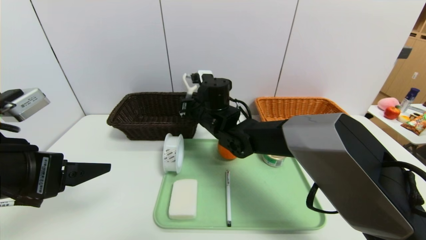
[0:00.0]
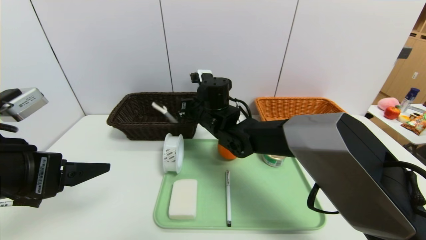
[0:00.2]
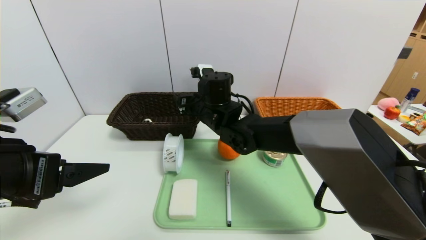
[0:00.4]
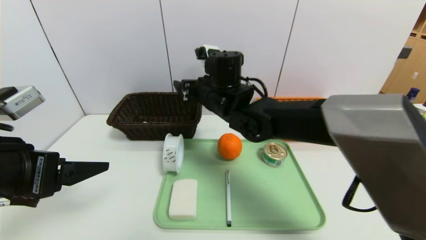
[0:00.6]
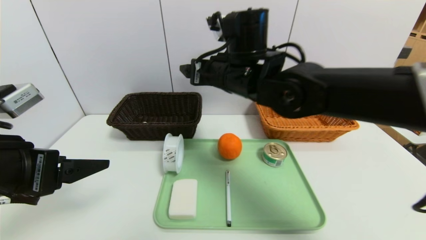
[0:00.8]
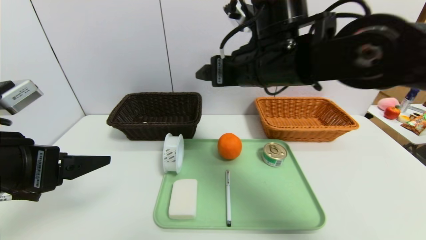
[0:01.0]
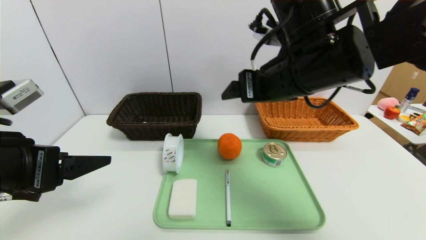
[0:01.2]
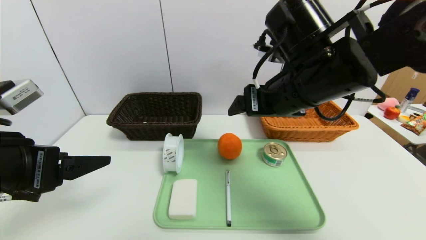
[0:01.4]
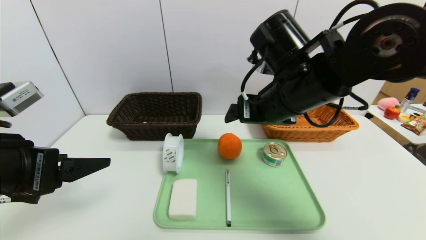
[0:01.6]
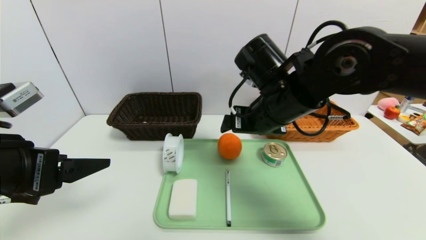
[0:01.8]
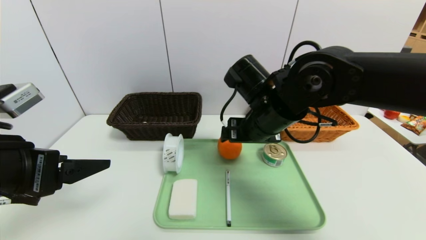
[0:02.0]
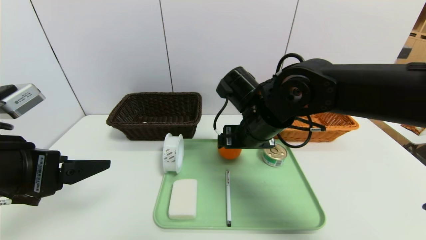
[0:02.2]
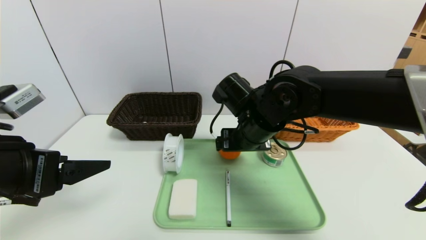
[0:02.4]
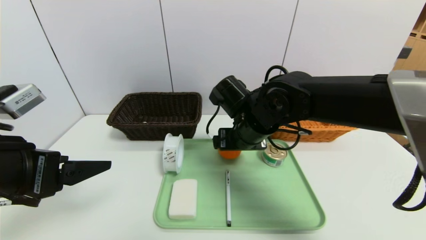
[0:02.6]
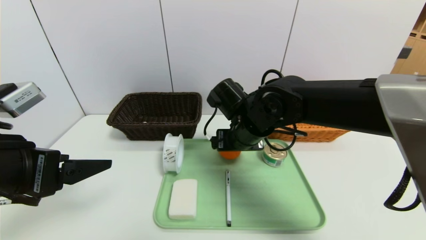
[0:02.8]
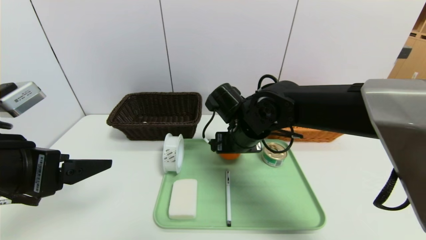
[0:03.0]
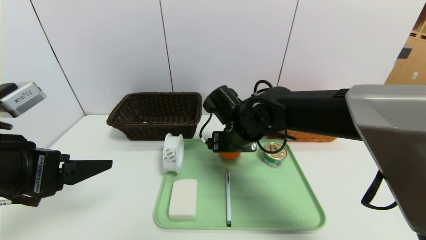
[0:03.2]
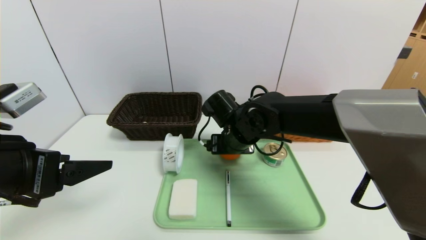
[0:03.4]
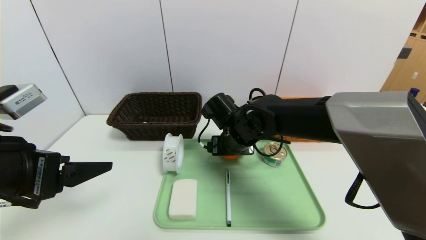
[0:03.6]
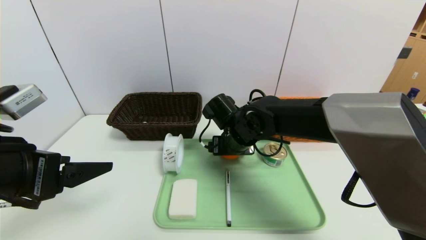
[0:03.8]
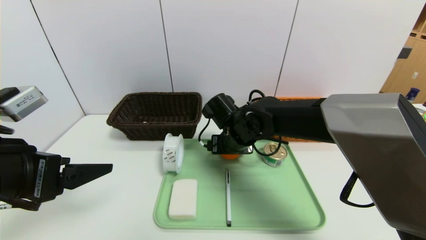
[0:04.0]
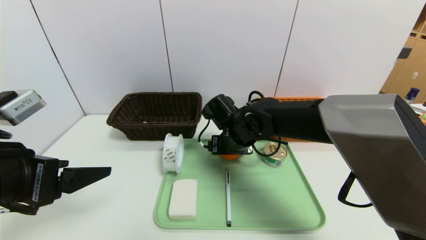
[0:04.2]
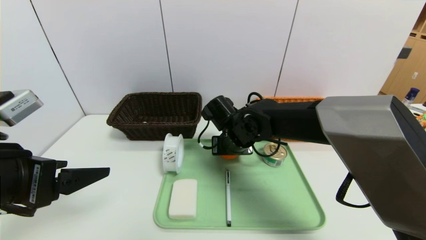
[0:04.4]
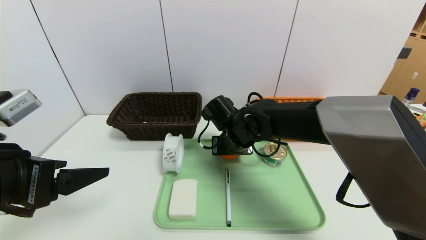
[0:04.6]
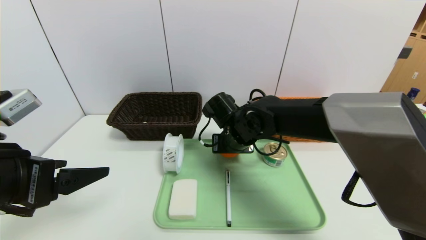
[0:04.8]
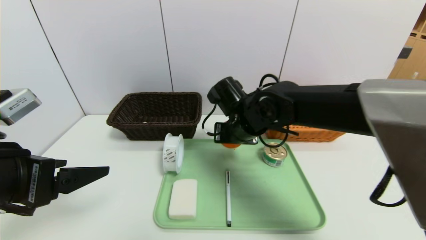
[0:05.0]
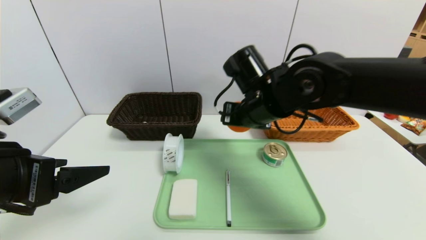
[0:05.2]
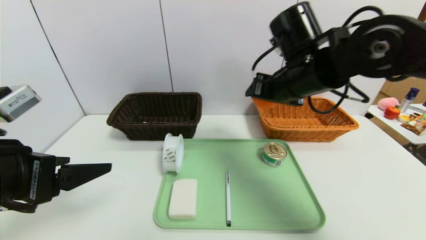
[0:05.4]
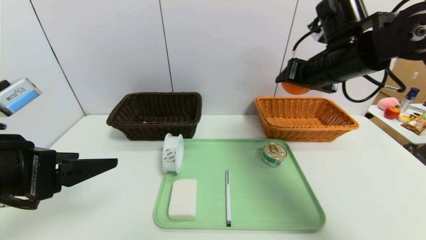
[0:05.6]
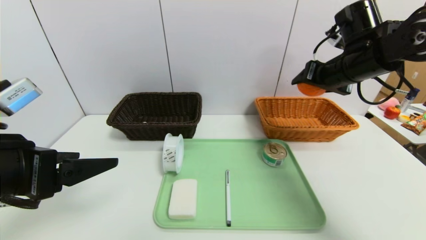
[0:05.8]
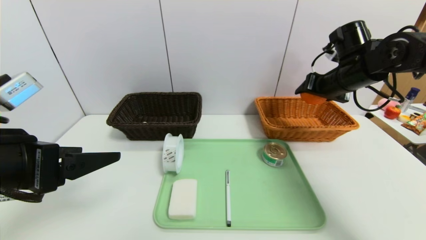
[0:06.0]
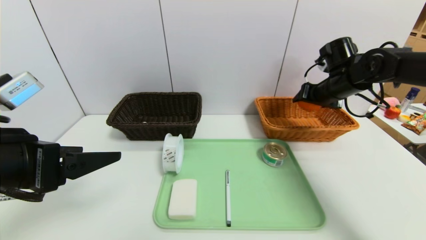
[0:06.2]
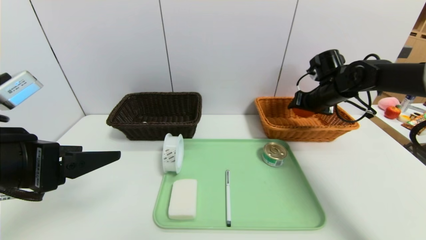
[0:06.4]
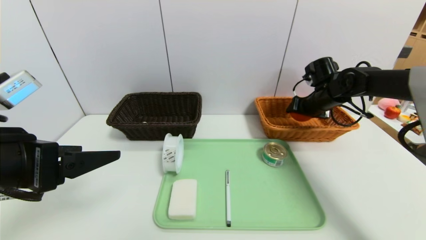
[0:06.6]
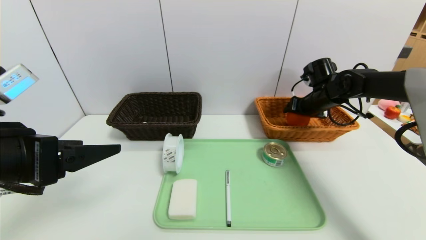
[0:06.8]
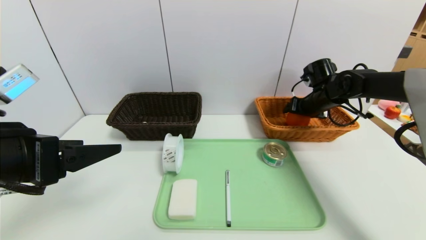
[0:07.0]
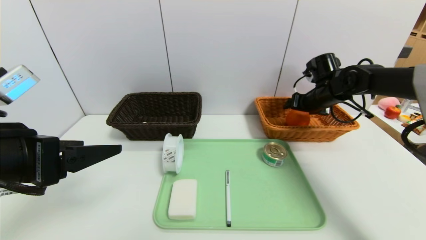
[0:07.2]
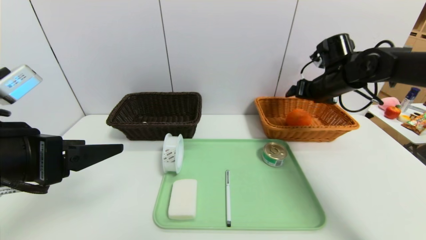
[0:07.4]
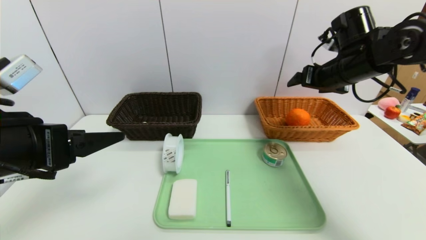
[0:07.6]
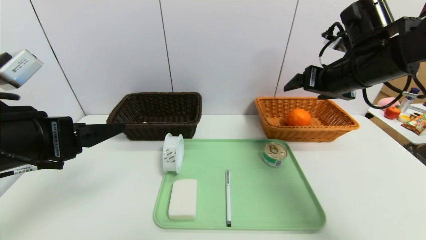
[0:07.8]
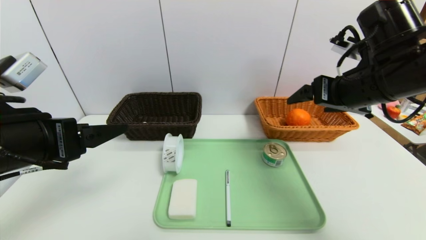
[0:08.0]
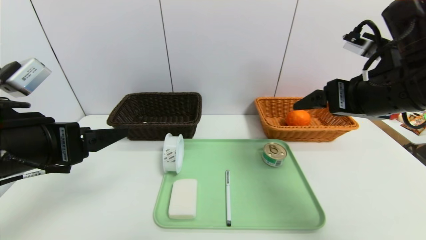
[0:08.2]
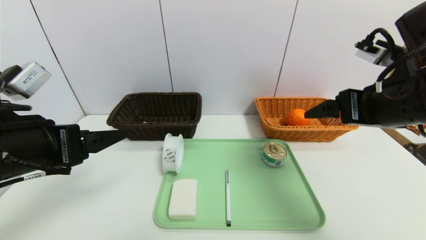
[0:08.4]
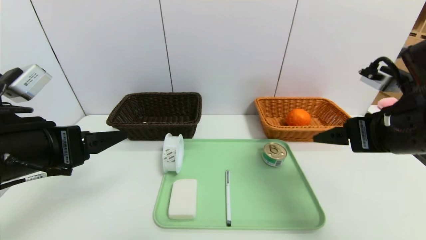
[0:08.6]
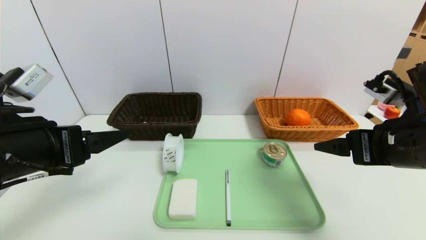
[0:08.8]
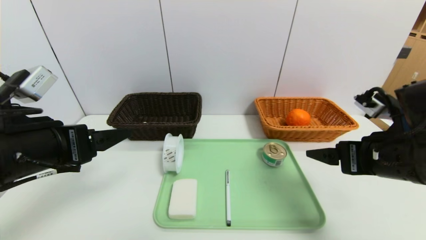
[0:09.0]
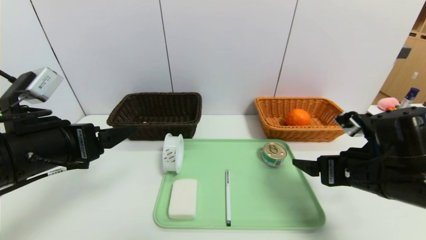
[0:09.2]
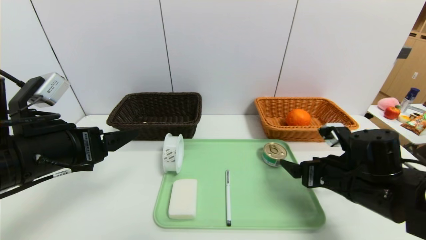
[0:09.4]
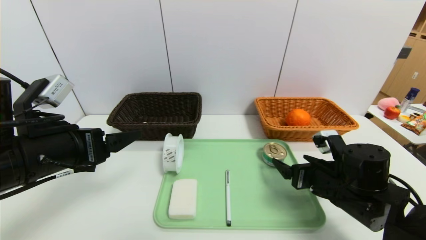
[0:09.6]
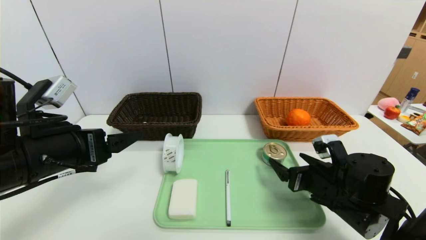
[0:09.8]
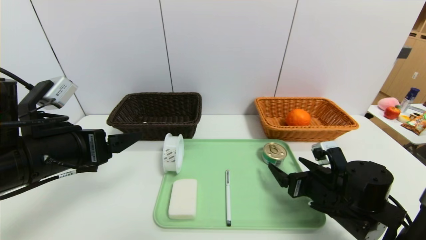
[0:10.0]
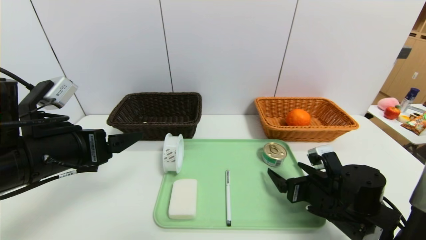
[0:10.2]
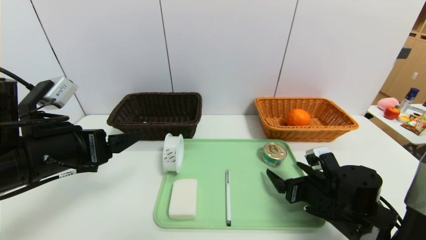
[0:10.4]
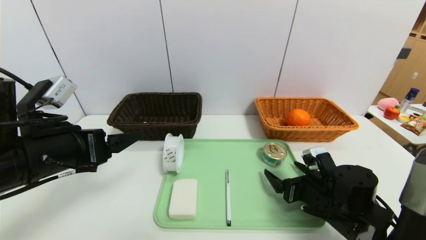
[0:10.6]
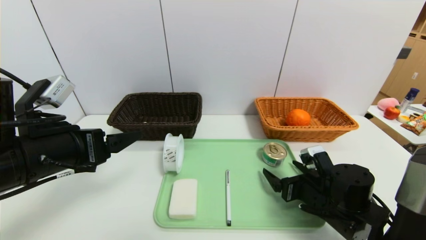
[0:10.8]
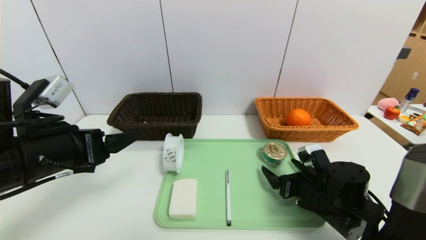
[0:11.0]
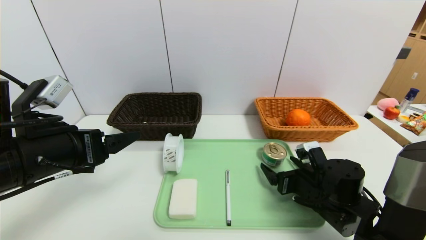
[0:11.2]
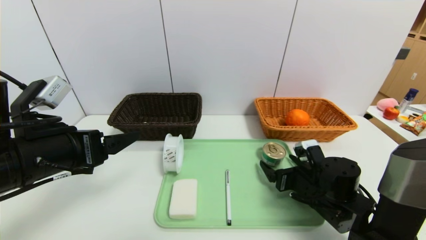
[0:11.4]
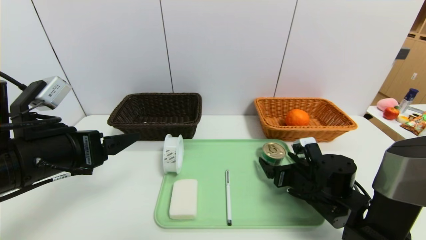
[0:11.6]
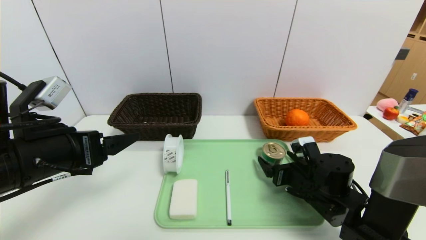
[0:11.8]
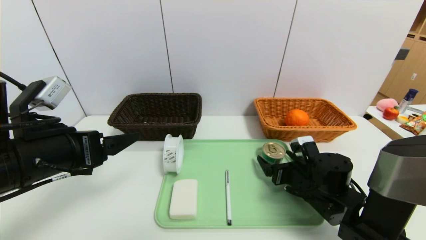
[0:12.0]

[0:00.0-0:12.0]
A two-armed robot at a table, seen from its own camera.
Task of the whole recording: place the food in the right basket with the right gripper, and place the non food items in the left basket with the left gripper.
Step, 0:00.4 to 0:07.0: Grasp the orange and put it in the right basket.
0:00.0 to 0:01.6: The right gripper shifts roughly 20 cm to the right, backward and upward, and opens.
0:01.6 to 0:03.0: The right gripper shifts roughly 10 cm downward and to the left.
0:03.0 to 0:04.4: The grippers move only a little.
0:04.4 to 0:06.0: The right gripper moves to the right and upward, about 25 cm.
0:06.0 to 0:07.6: The right gripper reaches some 10 cm downward, then returns.
0:07.6 to 0:09.0: The right gripper travels backward and downward by roughly 20 cm.
0:09.0 to 0:10.4: The right gripper goes roughly 15 cm downward.
0:10.4 to 0:12.0: The right gripper shifts by roughly 5 cm.

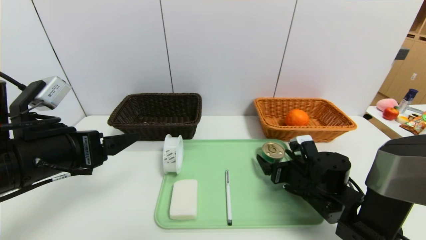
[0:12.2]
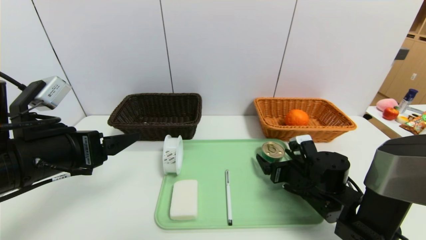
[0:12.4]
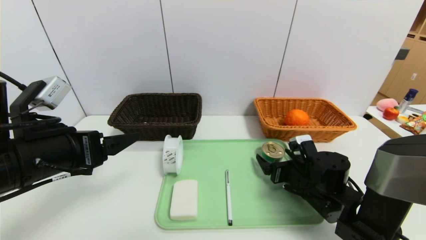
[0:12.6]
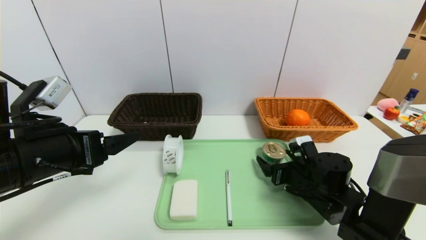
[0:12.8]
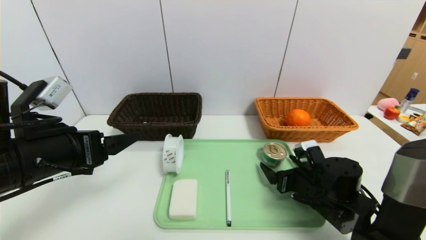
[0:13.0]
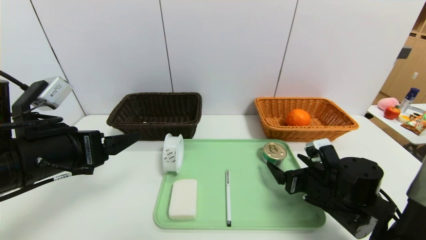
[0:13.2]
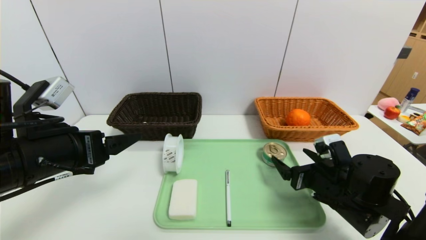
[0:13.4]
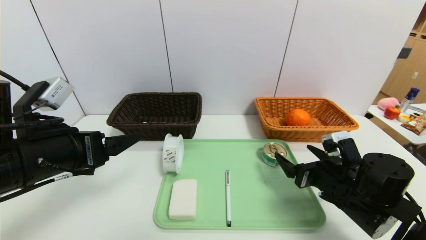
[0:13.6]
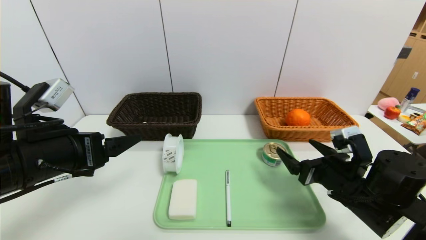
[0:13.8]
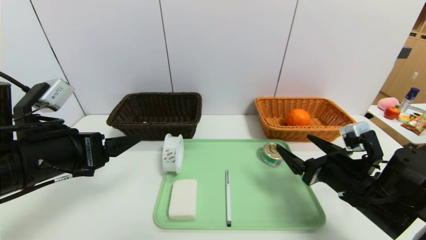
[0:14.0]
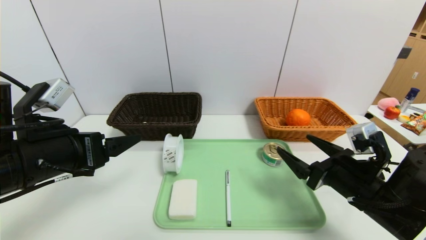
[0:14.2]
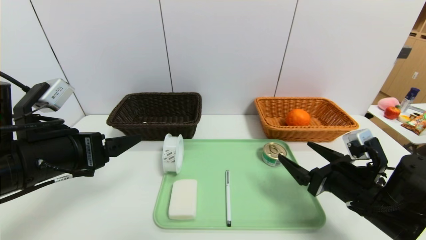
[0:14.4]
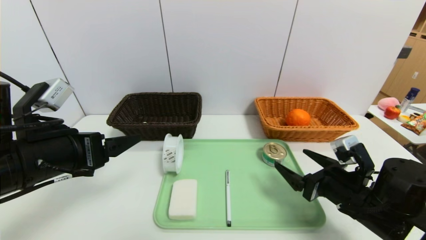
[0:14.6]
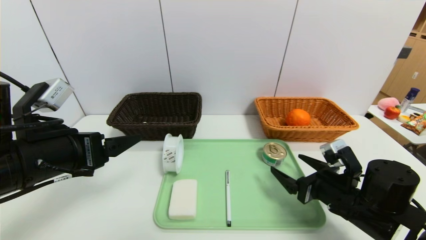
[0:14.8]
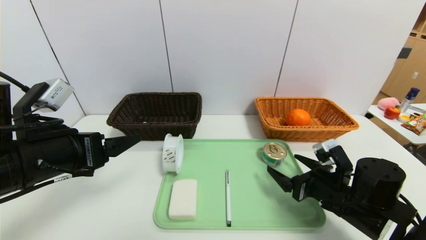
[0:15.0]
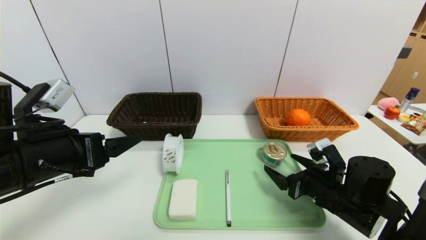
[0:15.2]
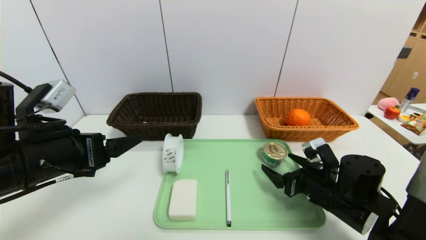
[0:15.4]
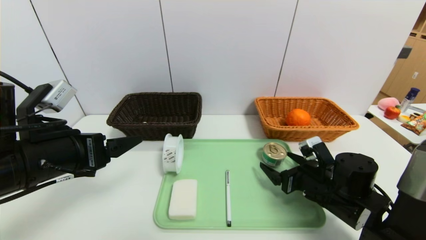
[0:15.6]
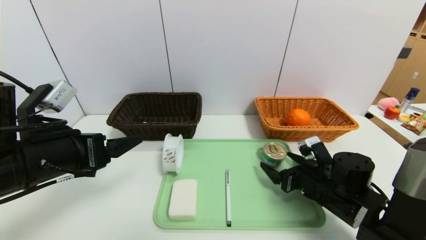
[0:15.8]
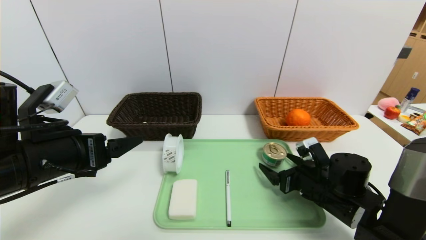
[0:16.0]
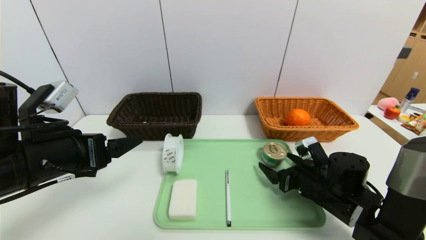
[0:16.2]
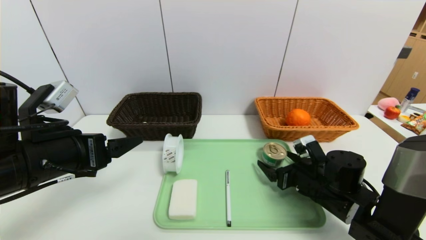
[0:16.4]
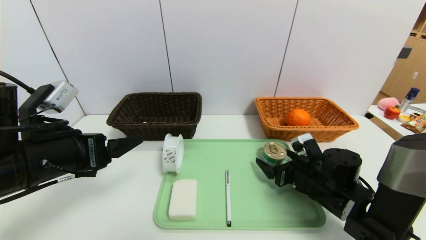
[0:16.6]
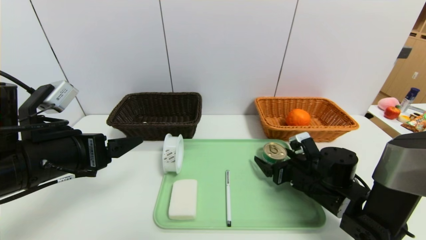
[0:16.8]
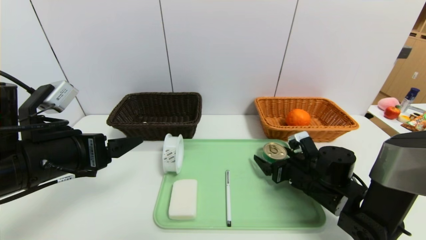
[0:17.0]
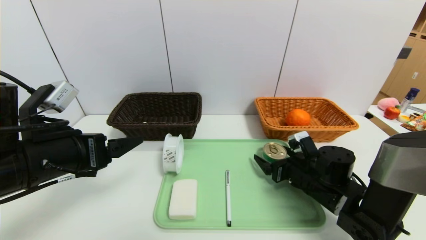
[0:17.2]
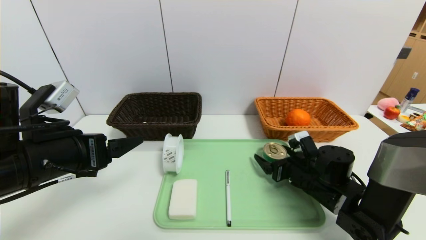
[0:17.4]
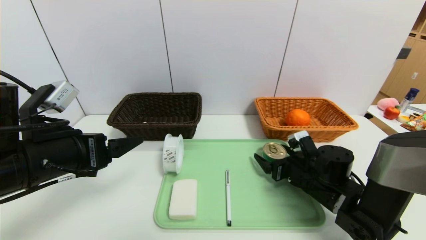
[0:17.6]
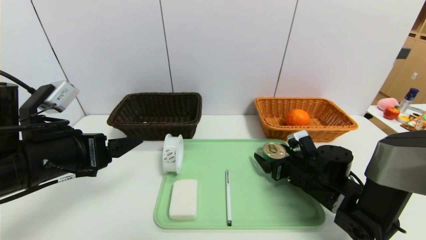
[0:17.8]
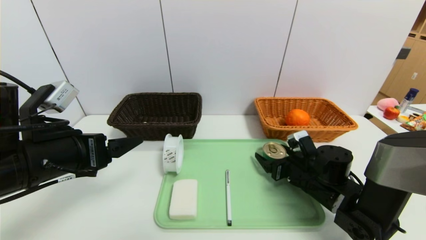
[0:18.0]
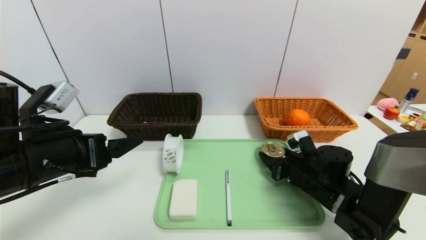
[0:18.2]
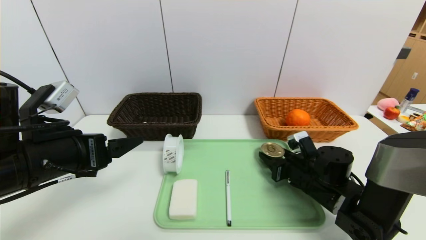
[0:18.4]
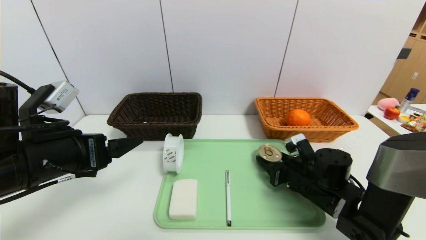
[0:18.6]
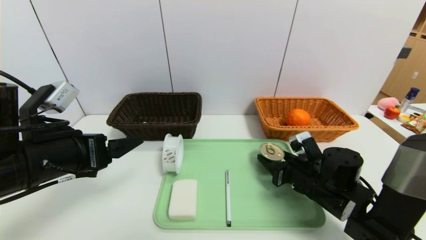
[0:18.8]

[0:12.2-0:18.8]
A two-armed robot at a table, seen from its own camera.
Task of the whole recording: place the food in the right basket with the right gripper, and place the non food items in the left basket with the left gripper.
0:12.2 to 0:13.8: The right gripper shifts about 10 cm upward and backward.
0:13.8 to 0:15.4: The right gripper moves about 5 cm.
0:15.4 to 0:17.2: The grippers make only small movements.
0:17.2 to 0:18.8: The right gripper closes up.
